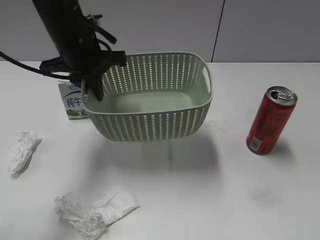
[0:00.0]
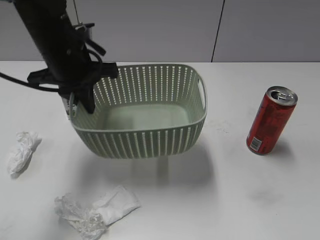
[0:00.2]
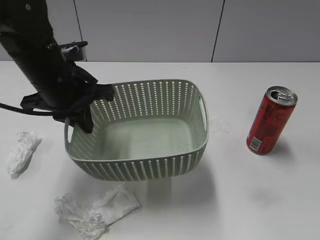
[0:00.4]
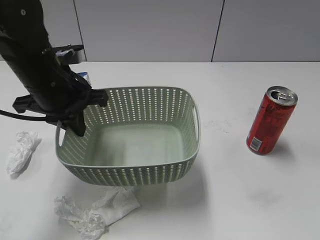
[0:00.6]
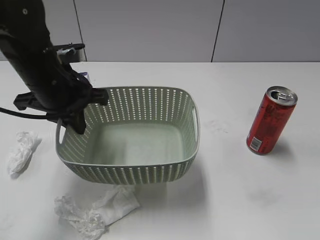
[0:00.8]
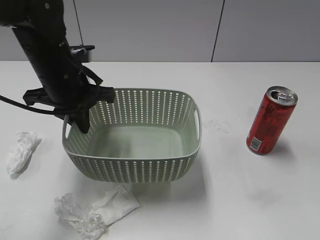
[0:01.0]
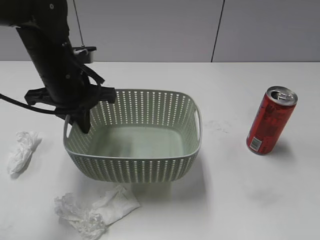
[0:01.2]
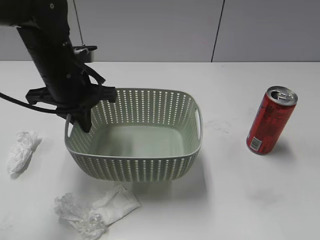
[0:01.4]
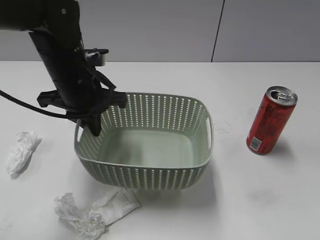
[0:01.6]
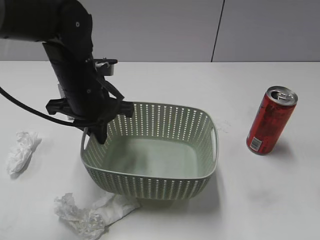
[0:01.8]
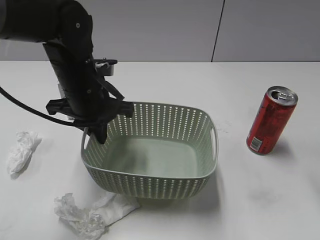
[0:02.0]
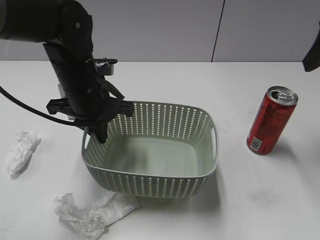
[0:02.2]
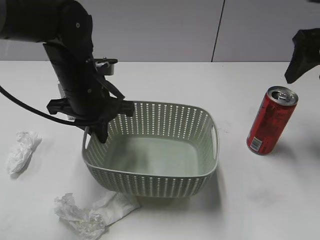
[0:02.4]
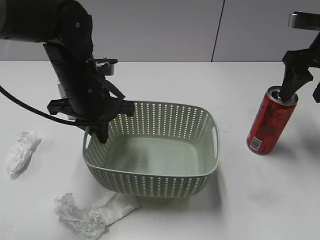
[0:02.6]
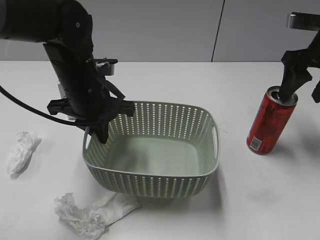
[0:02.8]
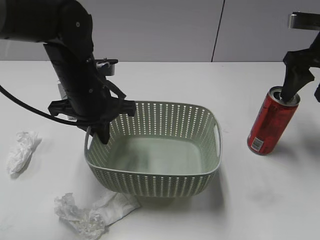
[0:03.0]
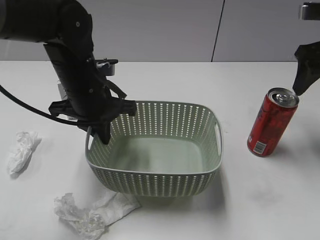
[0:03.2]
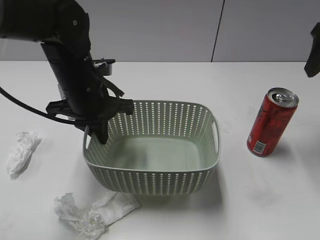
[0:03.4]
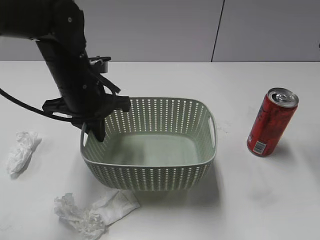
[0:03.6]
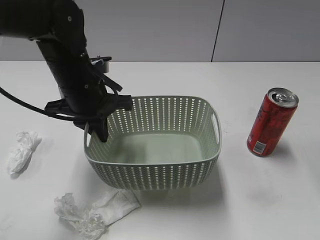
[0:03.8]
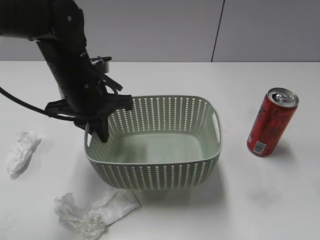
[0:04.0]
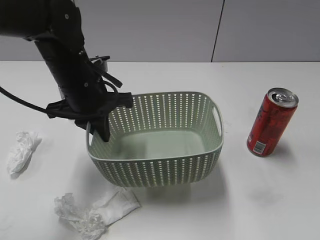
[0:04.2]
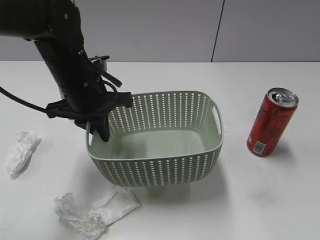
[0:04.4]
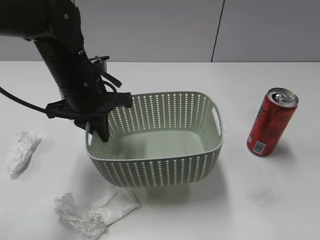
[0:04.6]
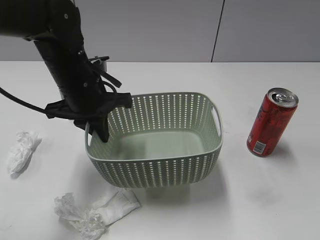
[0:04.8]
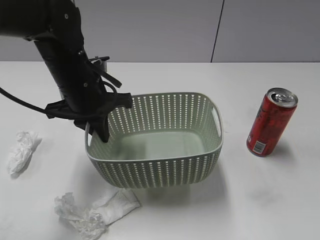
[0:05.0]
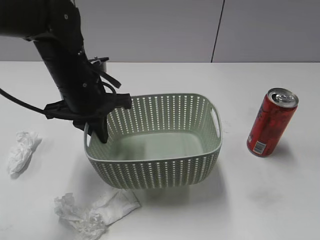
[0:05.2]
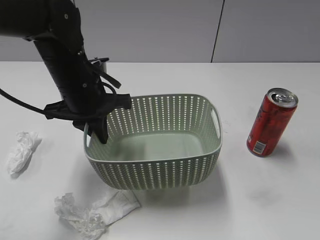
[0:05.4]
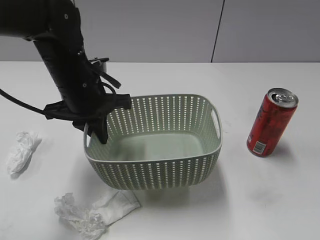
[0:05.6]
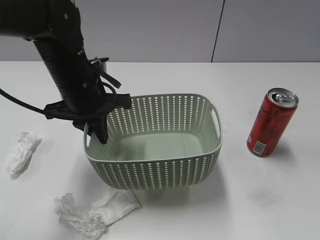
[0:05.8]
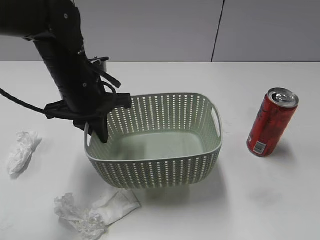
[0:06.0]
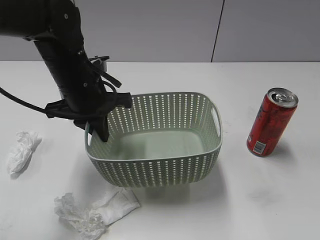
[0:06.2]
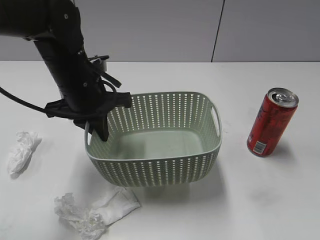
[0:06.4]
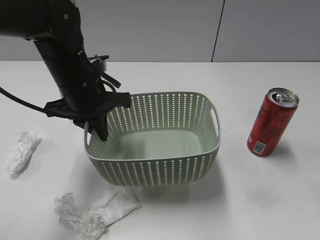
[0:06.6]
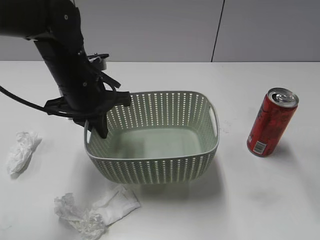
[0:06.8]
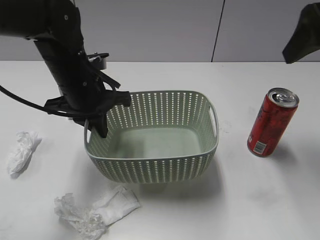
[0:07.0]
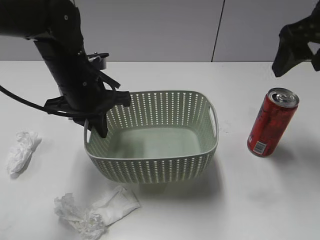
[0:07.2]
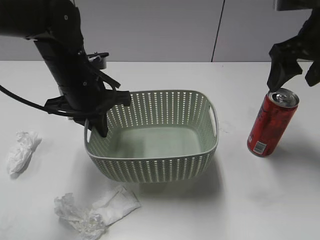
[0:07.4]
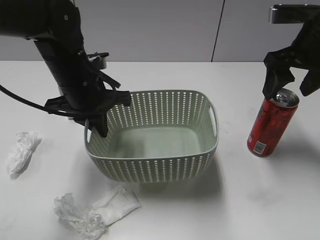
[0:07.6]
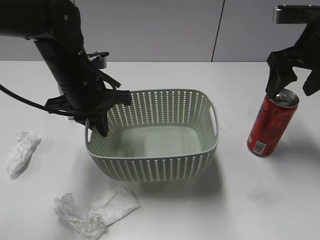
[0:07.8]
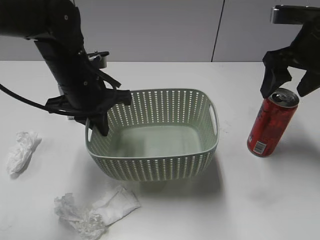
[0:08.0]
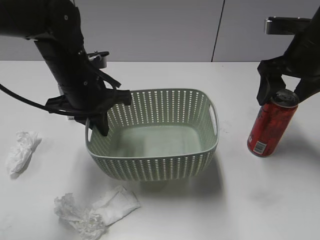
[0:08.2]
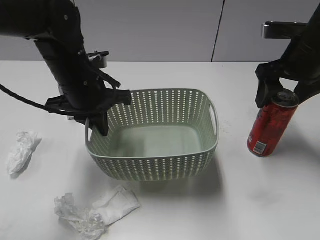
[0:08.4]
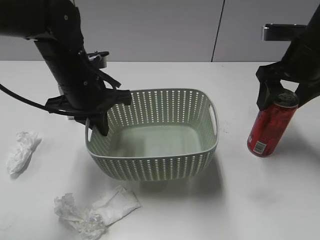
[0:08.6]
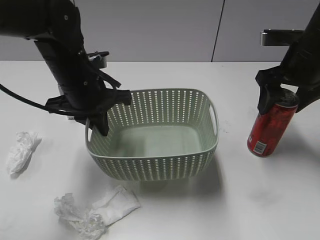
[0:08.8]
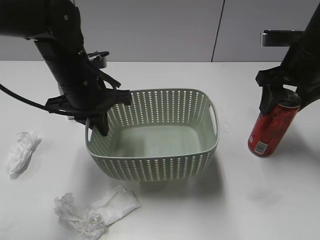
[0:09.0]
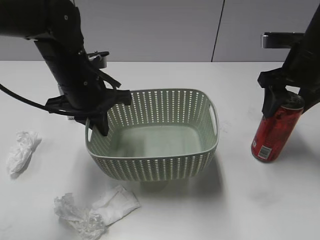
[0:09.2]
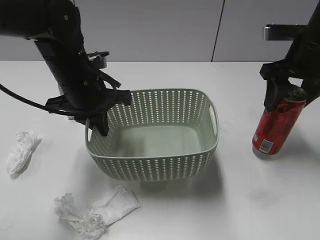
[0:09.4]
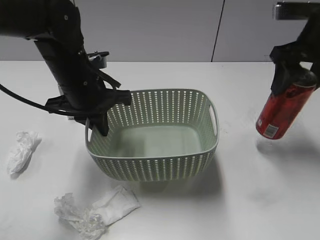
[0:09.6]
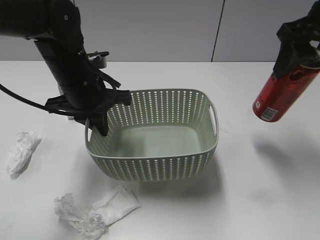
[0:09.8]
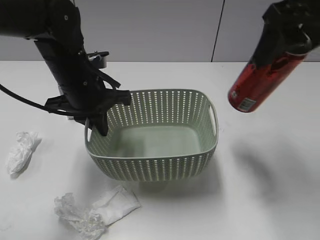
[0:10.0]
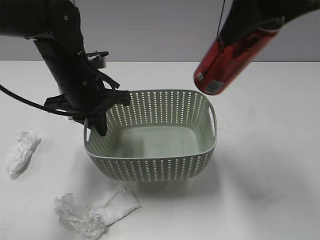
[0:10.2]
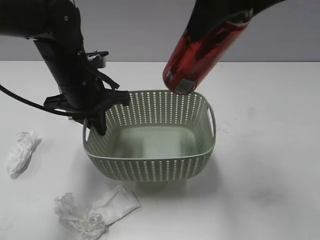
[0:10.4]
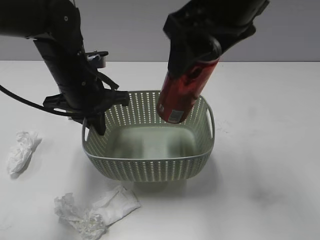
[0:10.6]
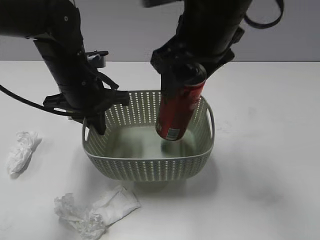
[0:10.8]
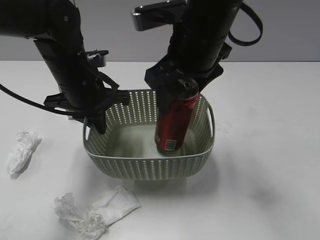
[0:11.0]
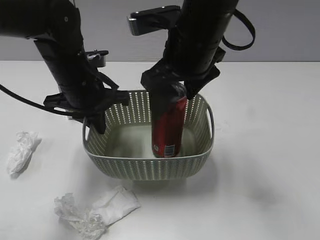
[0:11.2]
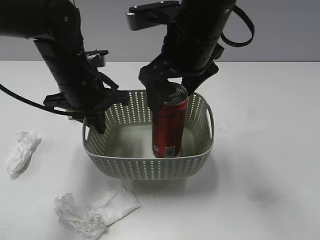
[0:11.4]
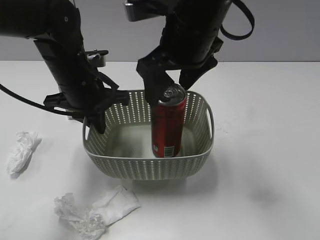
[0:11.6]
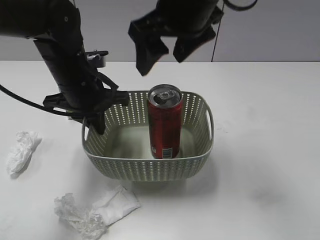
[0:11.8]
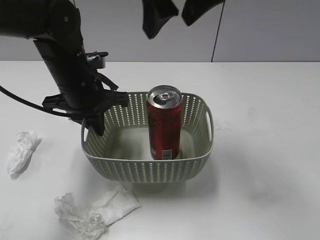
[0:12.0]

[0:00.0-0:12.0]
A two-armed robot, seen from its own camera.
Step, 0.0 to 2.0 s: Lift the basket with left gripper.
Step, 2.2 to 9.0 s: Grasp the cola can with right gripper.
Step, 9.2 to 11.4 s: Place the cola can in the basket with right gripper.
0.0 to 1.6 s: The right gripper is displaced upward and forward by roughly 10 cm; the left gripper moves backward, approximately 5 cm.
1.6 to 3.0 s: The right gripper moves forward, about 25 cm.
3.0 to 4.4 s: The right gripper shifts roughly 25 cm backward.
4.4 to 6.0 s: The right gripper goes roughly 10 cm backward and downward.
6.0 to 7.6 s: The right gripper heads forward, covering some 30 cm.
7.6 to 9.0 s: The right gripper closes up.
9.0 to 10.4 s: The right gripper goes roughly 25 cm upward, to the left and backward.
10.4 to 12.0 s: The right gripper is displaced forward and to the left by roughly 10 cm, goes downward and returns, roughly 15 cm each way, and opens.

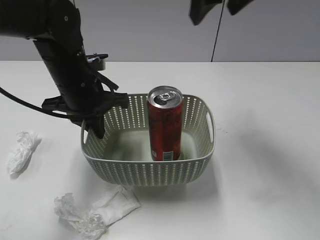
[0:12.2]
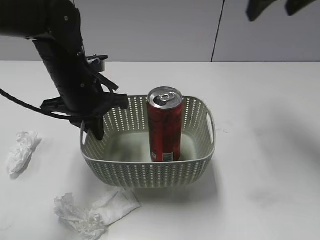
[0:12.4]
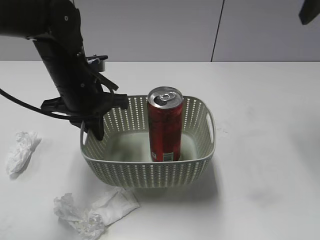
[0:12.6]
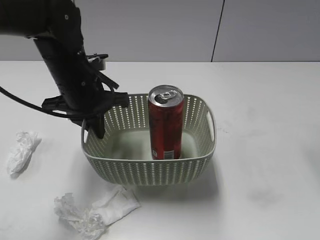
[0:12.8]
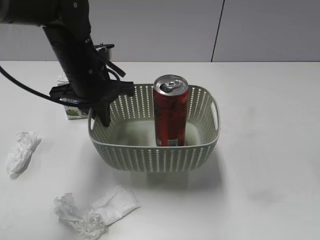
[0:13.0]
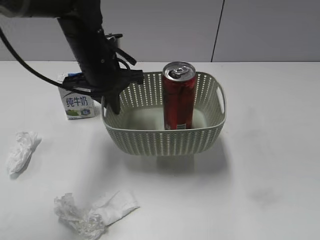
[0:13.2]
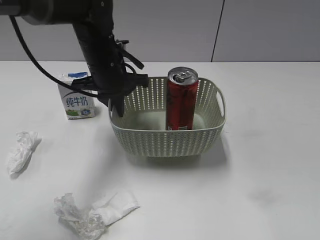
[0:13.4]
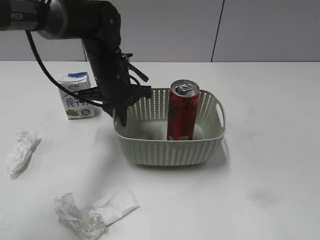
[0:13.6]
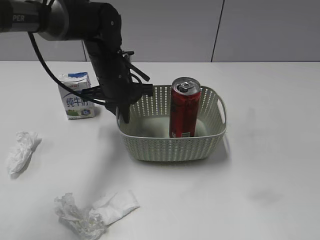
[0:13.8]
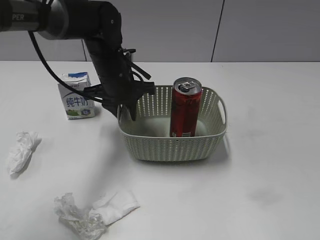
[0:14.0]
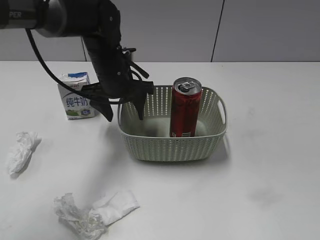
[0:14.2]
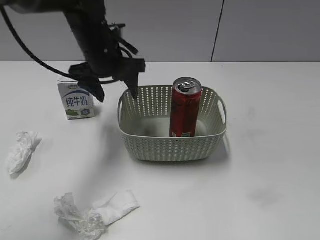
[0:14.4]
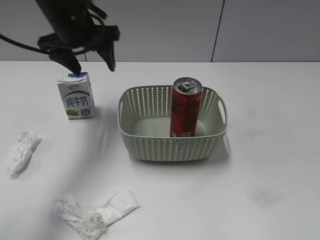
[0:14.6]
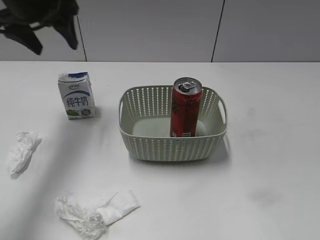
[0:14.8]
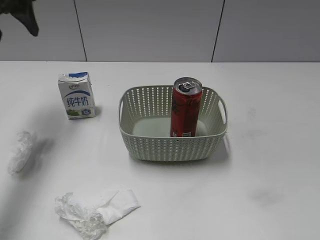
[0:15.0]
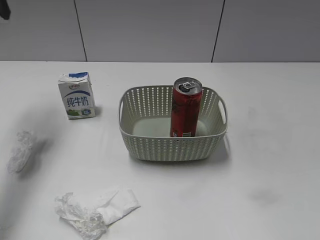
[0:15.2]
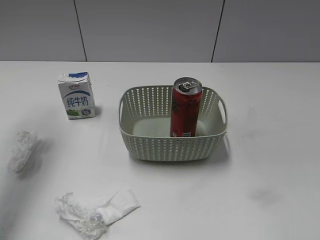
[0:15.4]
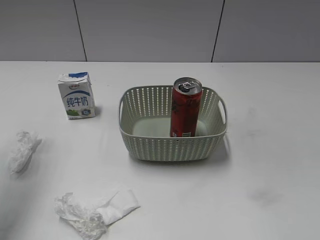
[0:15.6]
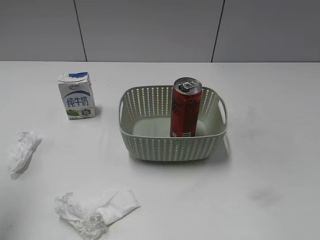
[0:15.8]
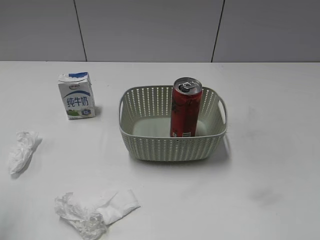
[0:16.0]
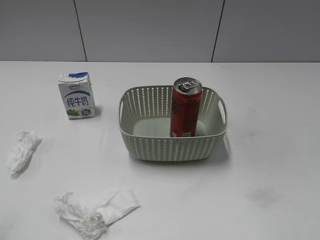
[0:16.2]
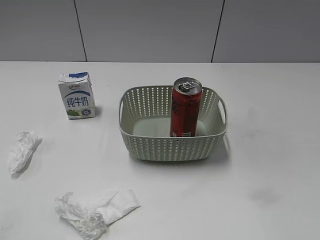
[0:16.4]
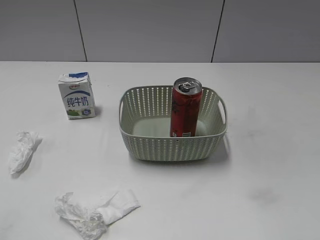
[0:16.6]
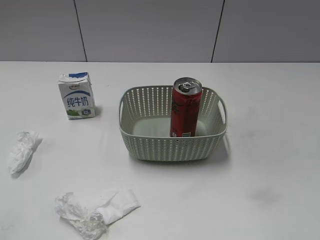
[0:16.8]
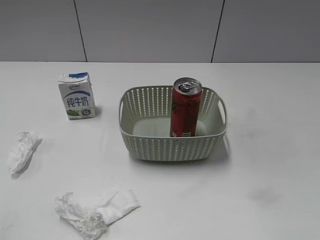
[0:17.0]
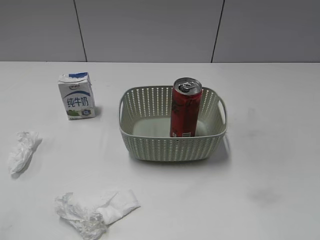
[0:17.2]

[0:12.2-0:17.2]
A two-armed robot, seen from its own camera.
Step, 12.2 to 14.0 s: Place the basket on the table with left gripper.
12.2 to 13.8 s: The right gripper is displaced backward and to the right by about 35 cm, while the left gripper is displaced forward by roughly 5 cm.
13.8 to 15.6 s: The left gripper heads upward, to the left and backward, covering some 35 cm, and opens its fingers.
15.6 to 17.2 s: The left gripper heads backward, covering about 30 cm.

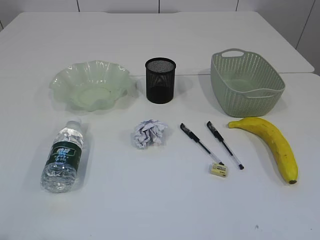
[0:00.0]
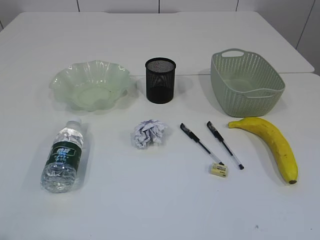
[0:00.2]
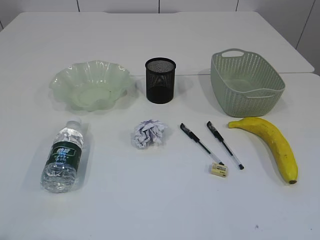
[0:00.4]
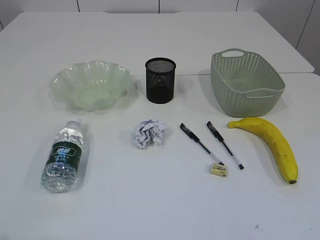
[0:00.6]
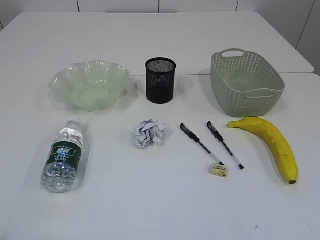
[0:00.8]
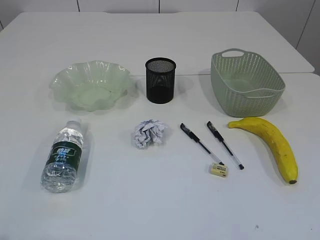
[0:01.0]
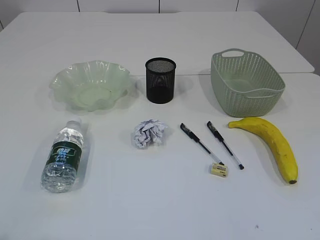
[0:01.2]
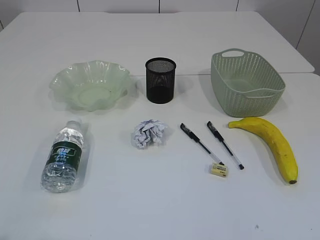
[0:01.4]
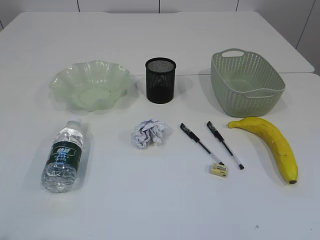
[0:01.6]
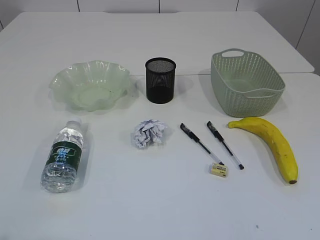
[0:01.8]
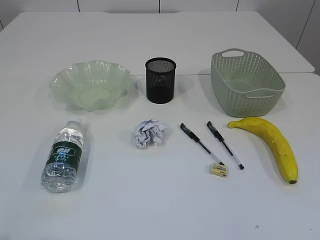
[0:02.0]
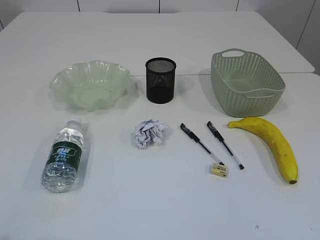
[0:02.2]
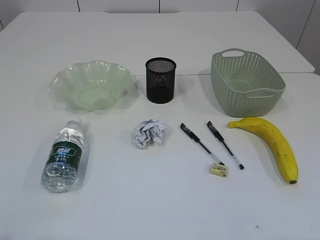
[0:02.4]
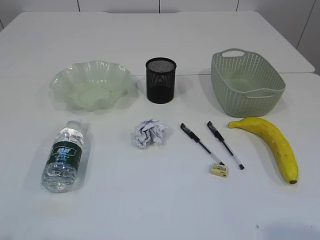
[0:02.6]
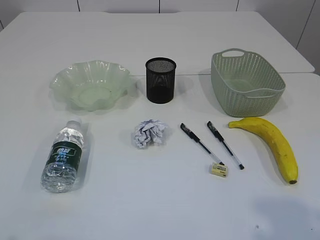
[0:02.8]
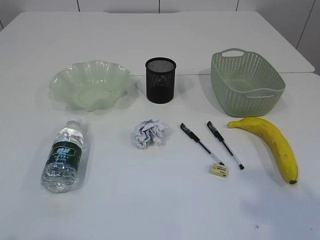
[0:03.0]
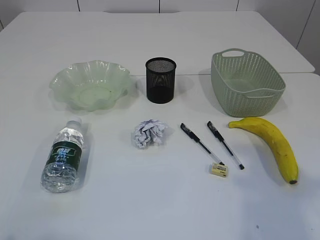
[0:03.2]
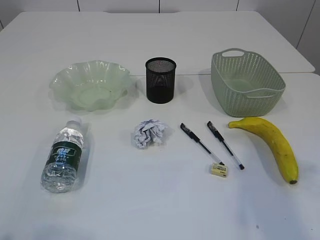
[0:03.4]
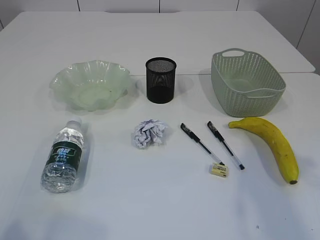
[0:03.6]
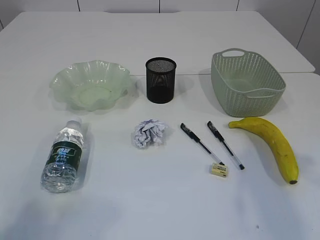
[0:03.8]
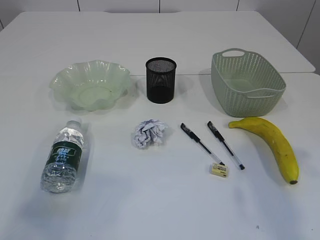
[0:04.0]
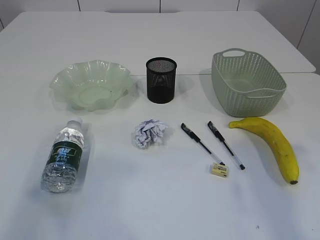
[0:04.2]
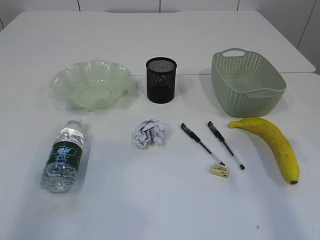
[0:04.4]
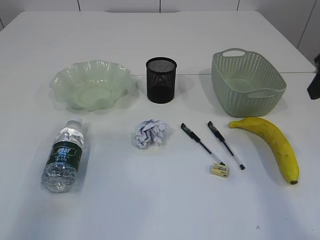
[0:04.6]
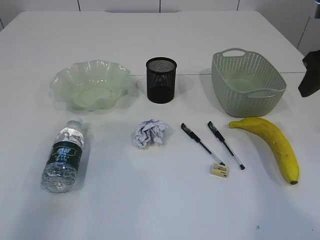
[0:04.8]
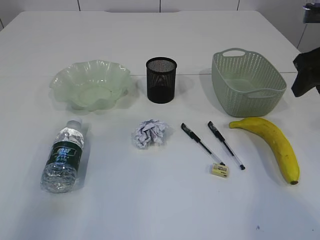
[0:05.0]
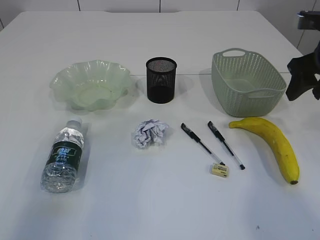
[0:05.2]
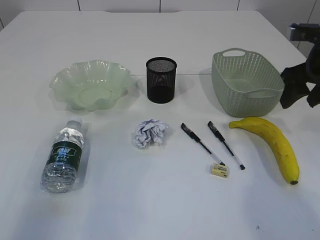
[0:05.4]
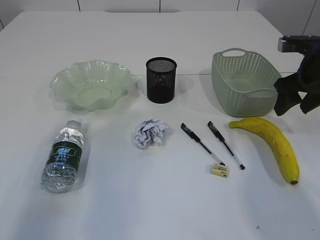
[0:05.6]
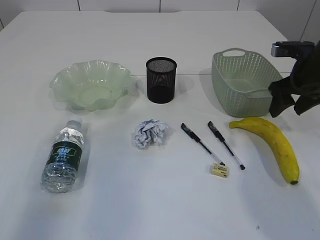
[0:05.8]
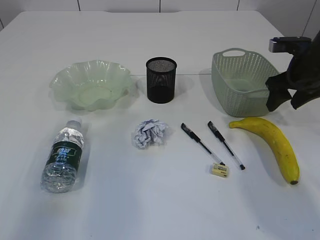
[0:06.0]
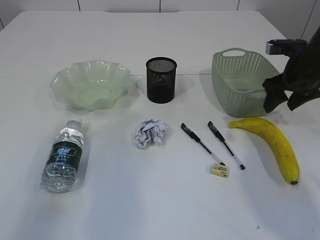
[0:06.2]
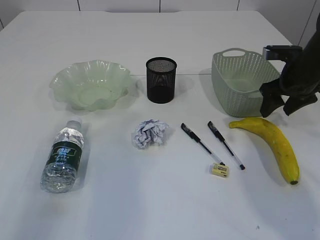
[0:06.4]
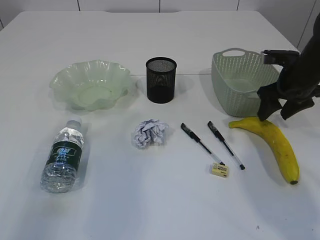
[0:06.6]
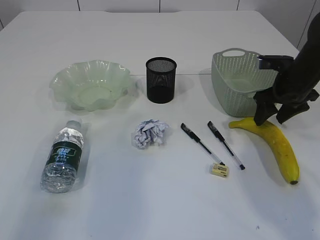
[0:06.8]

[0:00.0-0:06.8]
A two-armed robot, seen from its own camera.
1.4 to 2.8 s: The right gripper heads upward and forward, covering about 10 cm.
2.8 to 4.0 s: The right gripper moves forward, some 20 cm, while the left gripper goes roughly 10 cm upward and forward.
4.0 to 5.4 s: The right gripper travels forward and downward by approximately 15 cm.
5.4 to 6.8 s: The right gripper shifts approximately 10 cm downward and forward.
